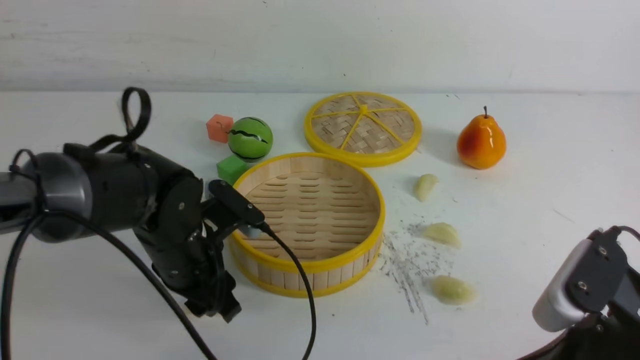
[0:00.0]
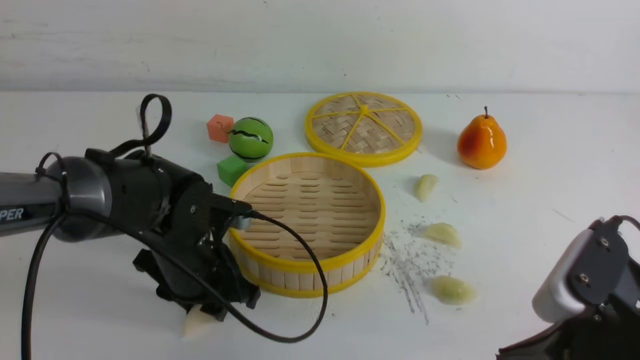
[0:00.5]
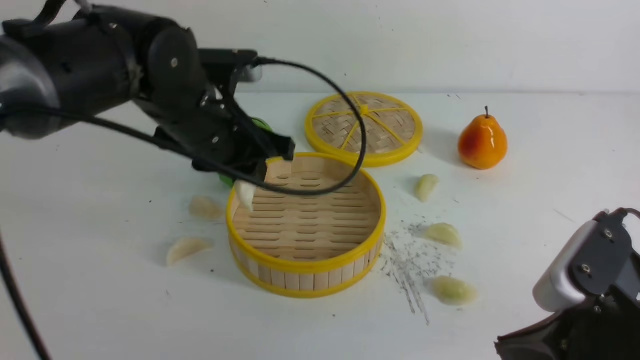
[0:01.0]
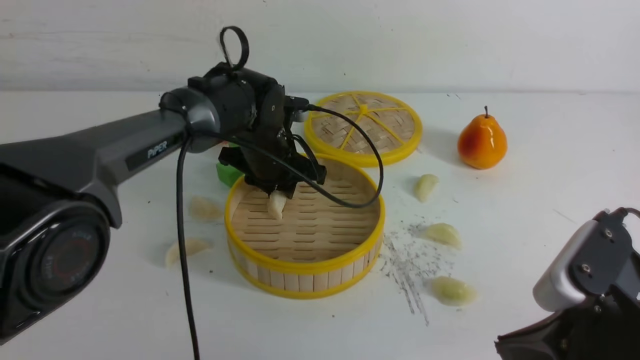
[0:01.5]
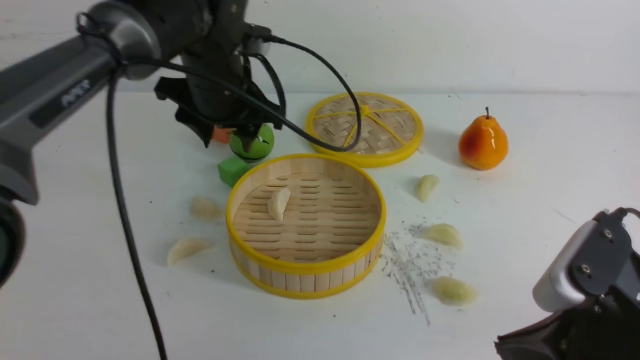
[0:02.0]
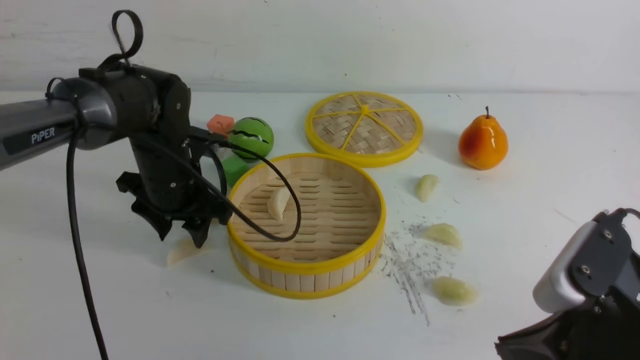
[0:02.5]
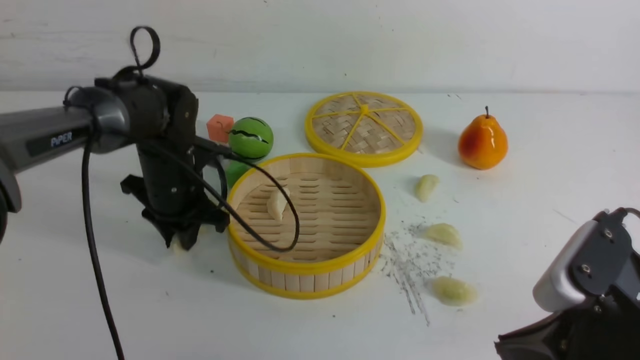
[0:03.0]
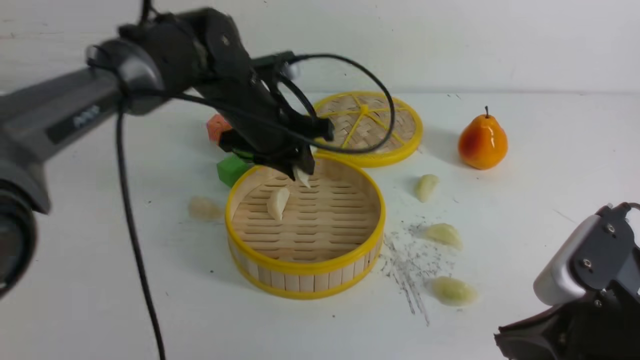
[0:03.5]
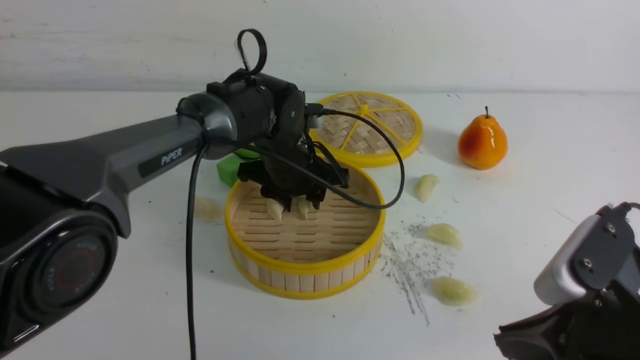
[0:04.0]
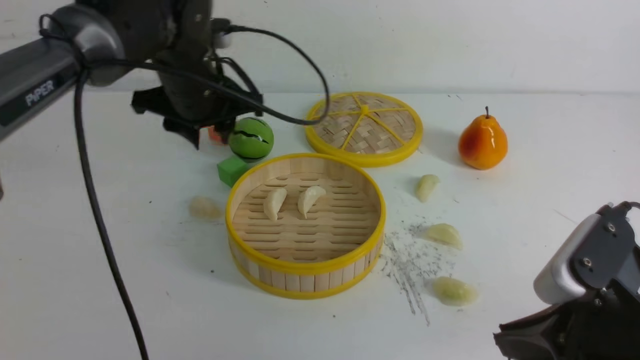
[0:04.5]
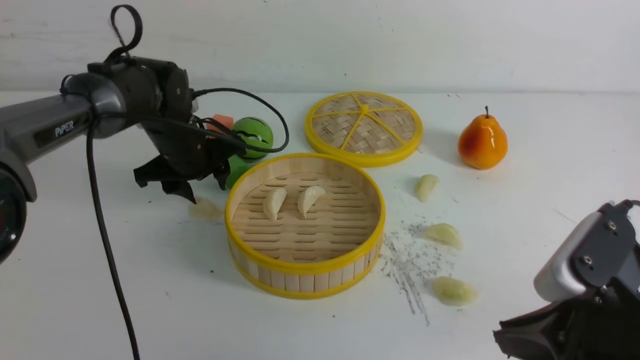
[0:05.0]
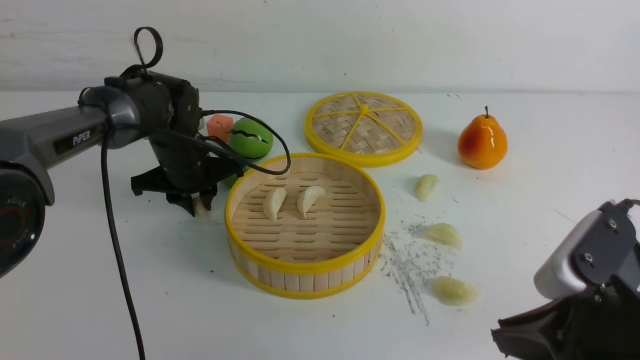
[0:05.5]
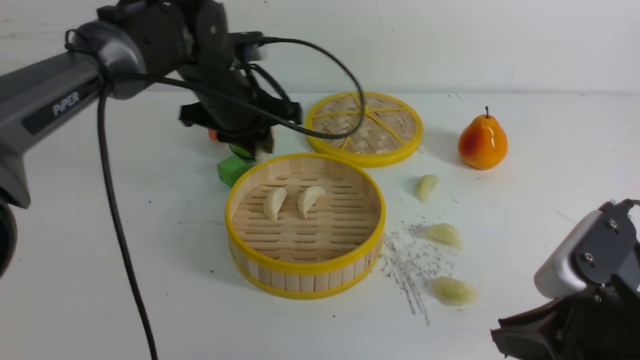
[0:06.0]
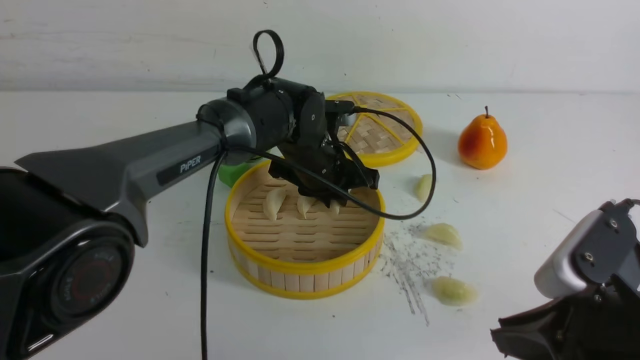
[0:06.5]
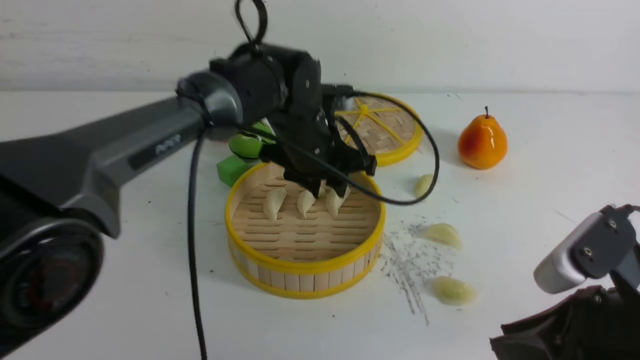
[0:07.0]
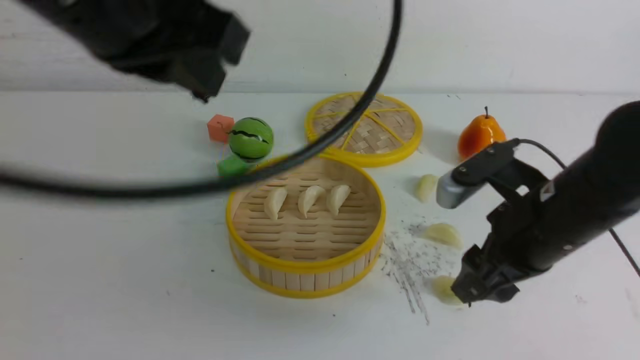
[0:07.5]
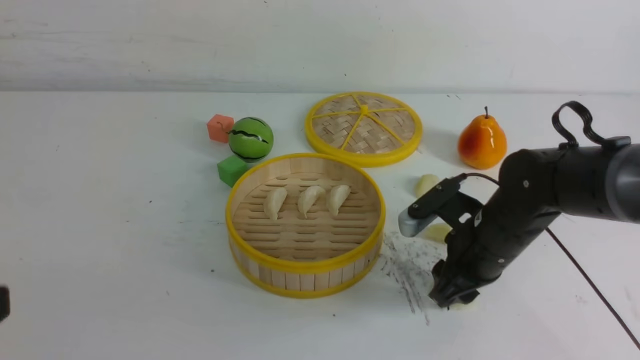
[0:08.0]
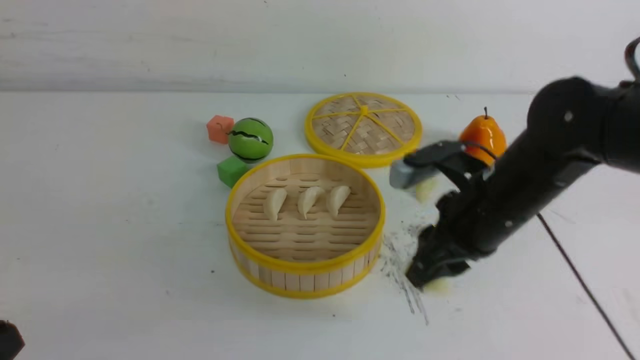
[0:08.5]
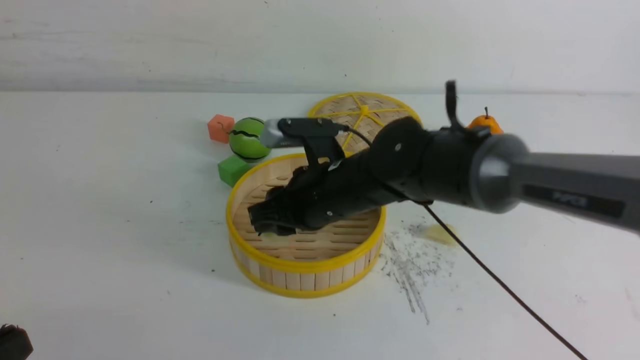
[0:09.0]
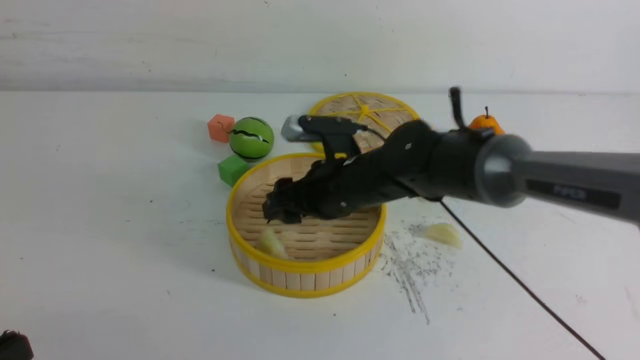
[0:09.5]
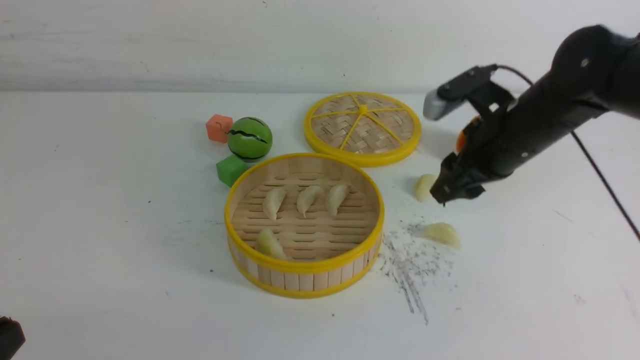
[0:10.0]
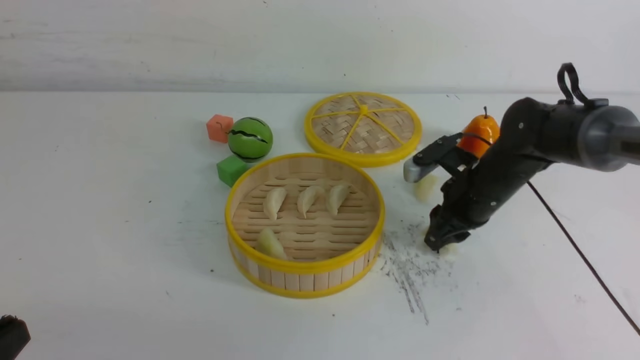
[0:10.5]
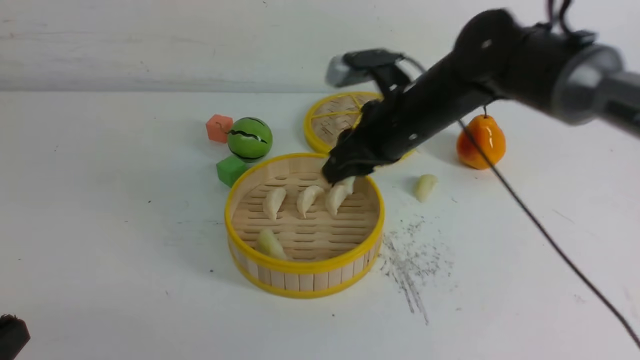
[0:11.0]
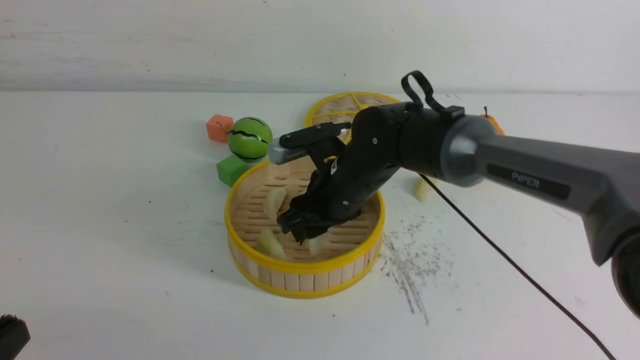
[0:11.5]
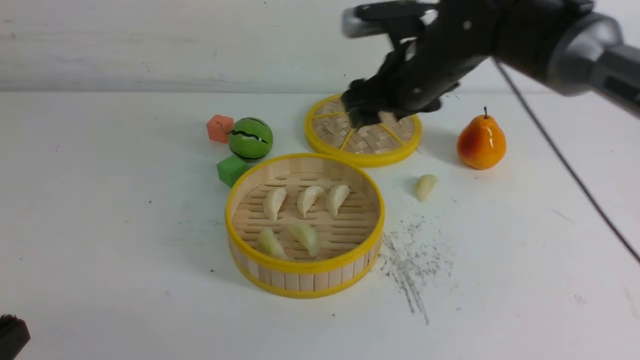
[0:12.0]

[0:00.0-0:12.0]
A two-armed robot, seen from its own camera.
Task of the whole recording: put the dumplings into the steamer on the white table.
Step, 0:01.0 to 0:02.0: use the left arm to put the dumpling into the steamer.
Step, 0:03.5 to 0:04.0: use the left arm to put the dumpling into the steamer.
Step, 0:04.5 to 0:05.5: use the left arm to grab a dumpling.
Step, 0:06.0 to 0:07.0: use the left arm to put the dumpling into the steamer.
Step, 0:07.5 to 0:08.0: use the right arm to grab a dumpling.
Step, 0:08.5 to 0:09.5: use the right arm to put the dumpling into the steamer.
Step, 0:10.0 to 0:10.5: use the right arm to grab a dumpling.
Step, 0:11.0 to 0:11.5: use the right arm to put the dumpling into the steamer.
0:00.0 to 0:02.0: The left gripper travels forward and upward by approximately 15 cm.
0:02.0 to 0:04.0: The left gripper heads to the right and downward, covering approximately 10 cm, and closes, then reopens.
0:04.0 to 0:06.0: The left gripper reaches approximately 15 cm to the left, then returns, and closes.
0:06.0 to 0:08.0: The left gripper heads backward and to the left, covering some 40 cm, and closes its fingers. Meanwhile the right gripper heads forward and downward, covering roughly 20 cm, and opens its fingers.
0:08.0 to 0:10.0: The left gripper heads downward, covering about 5 cm. The right gripper travels upward and forward by roughly 10 cm, and reaches about 15 cm to the left, then returns.
0:10.0 to 0:12.0: The right gripper is displaced to the left by roughly 5 cm.

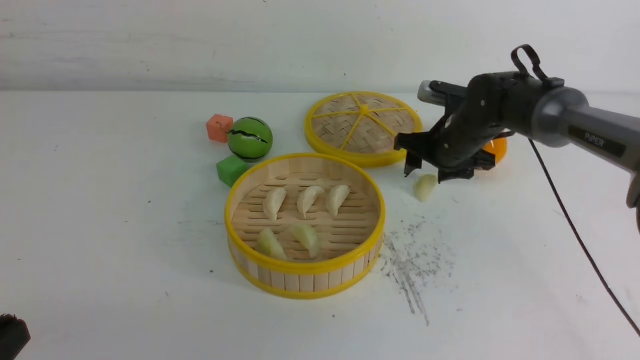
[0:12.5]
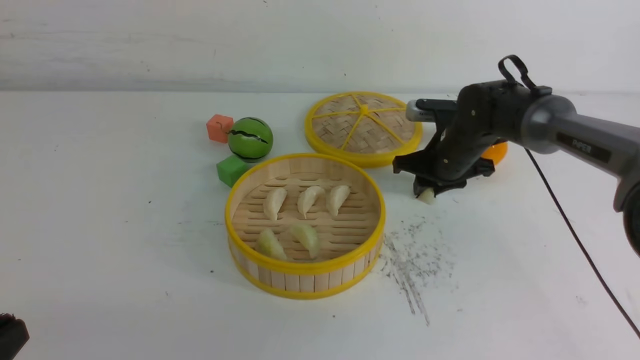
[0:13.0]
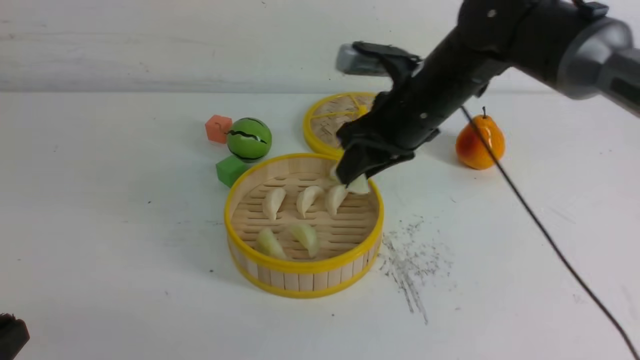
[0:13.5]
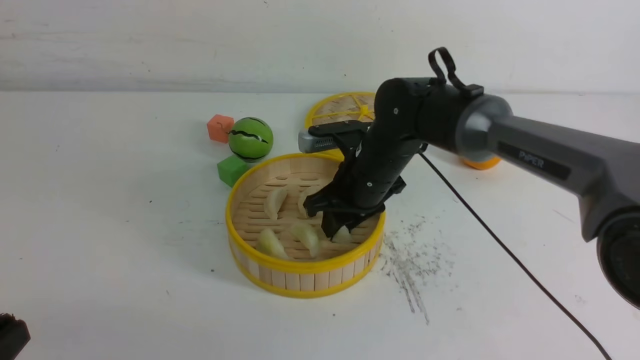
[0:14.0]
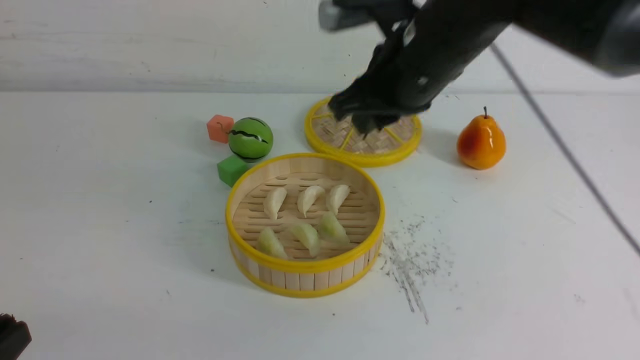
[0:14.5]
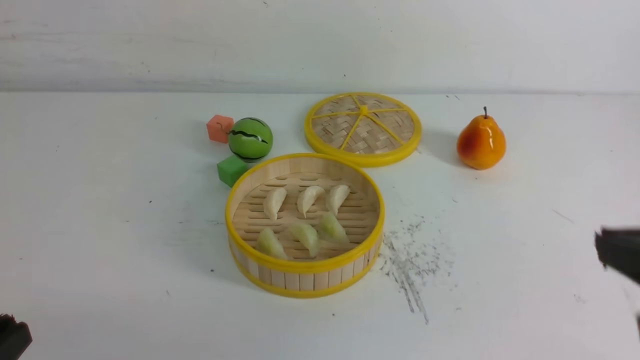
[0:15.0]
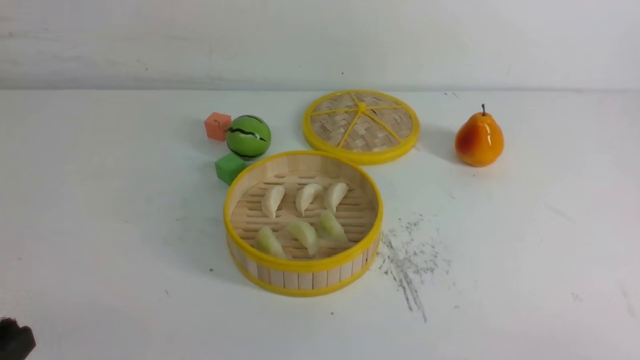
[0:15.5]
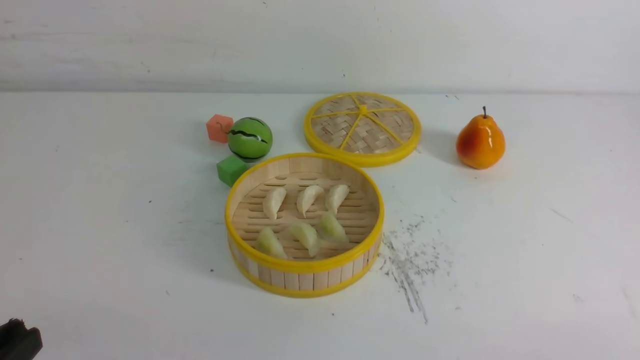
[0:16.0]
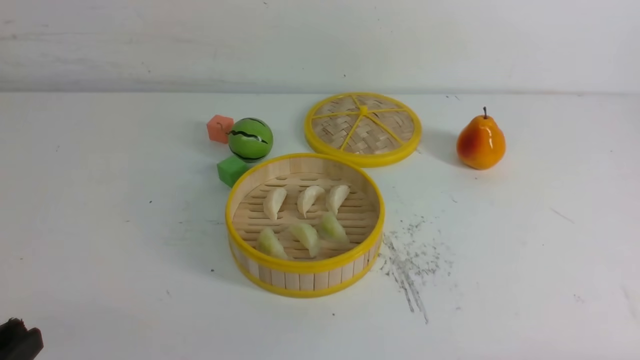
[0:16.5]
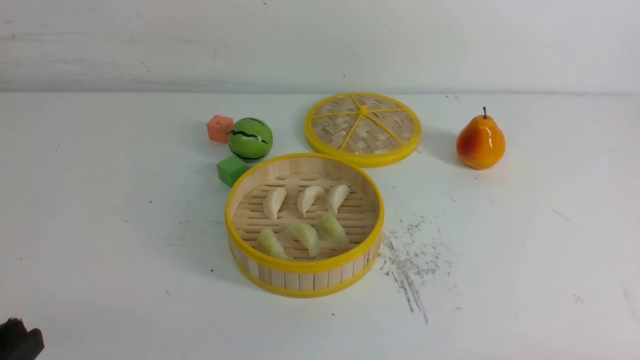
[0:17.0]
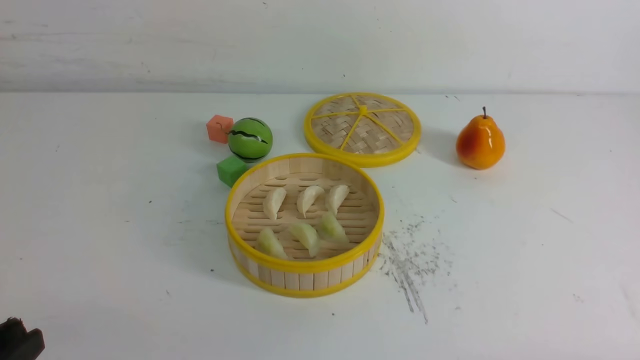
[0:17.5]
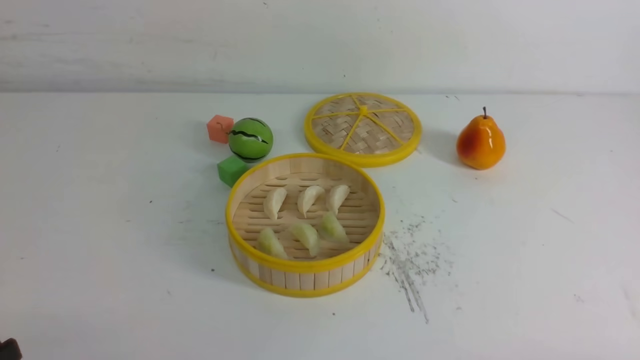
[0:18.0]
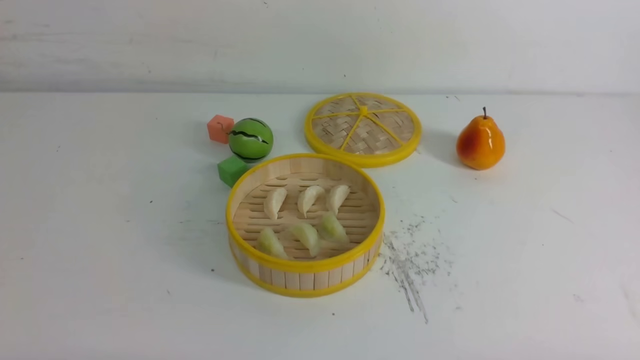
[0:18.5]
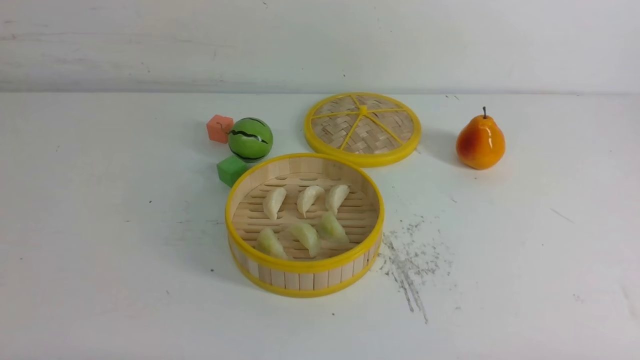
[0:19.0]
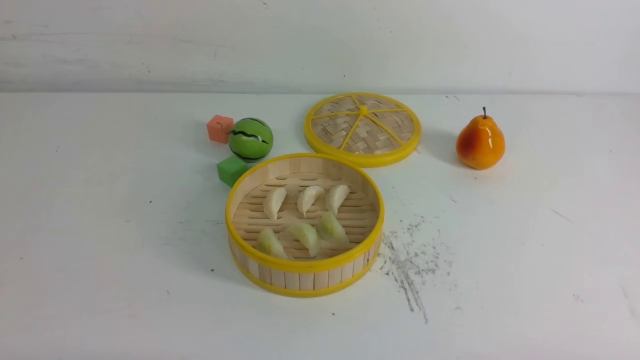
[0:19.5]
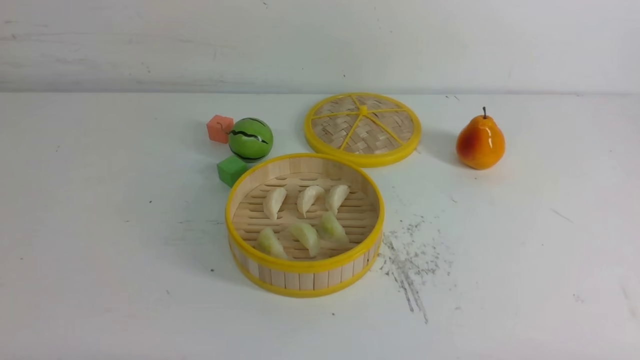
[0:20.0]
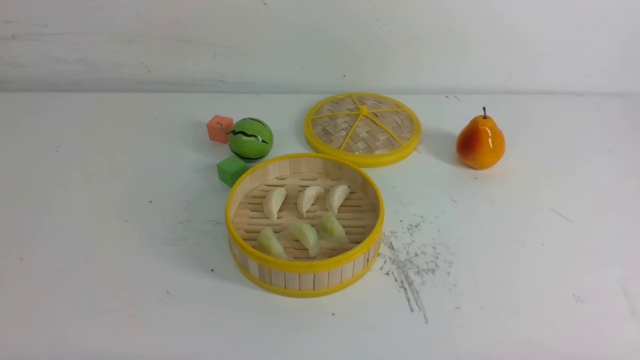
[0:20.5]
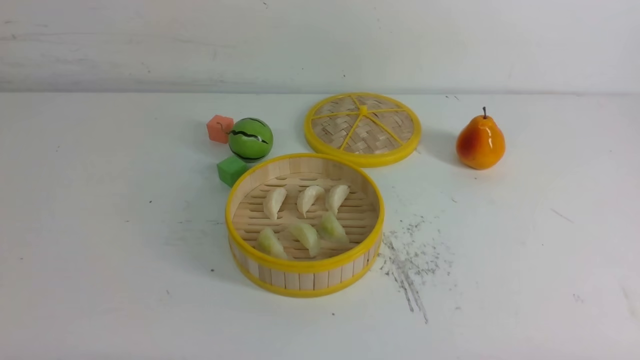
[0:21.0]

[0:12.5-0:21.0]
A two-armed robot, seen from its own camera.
Task of the whole recording: put the dumplings into the steamer on the white table.
Step, 0:13.5 to 0:14.5: use the right arm to put the dumpling into the steamer.
0:12.5 to 0:14.5: The right gripper swings up and down, approximately 20 cm each way, with 2 reversals, and closes its fingers.
0:14.5 to 0:16.5: The right gripper moves backward, to the right and downward, about 40 cm.
0:16.5 to 0:19.0: The left gripper is displaced downward by some 10 cm.
0:19.0 to 0:21.0: Both grippers stay about where they are.
